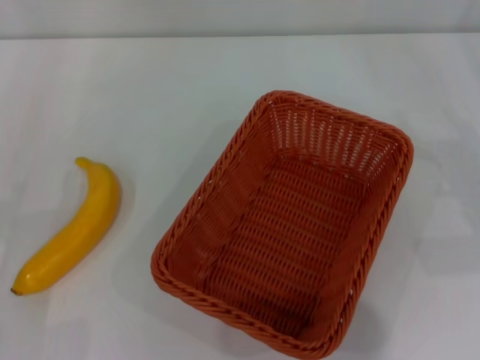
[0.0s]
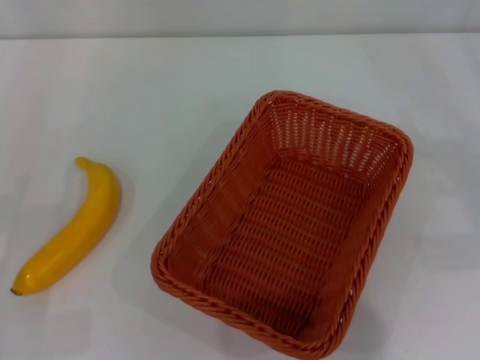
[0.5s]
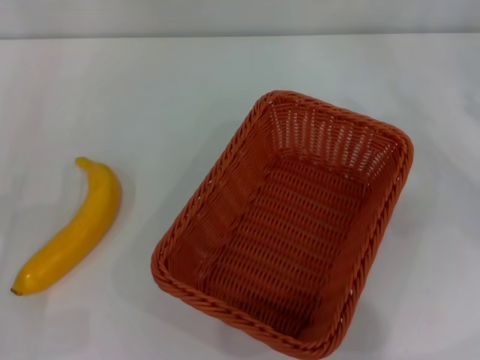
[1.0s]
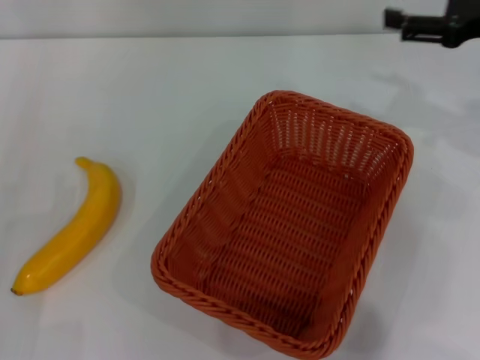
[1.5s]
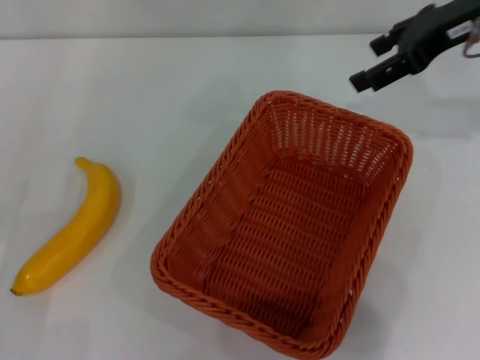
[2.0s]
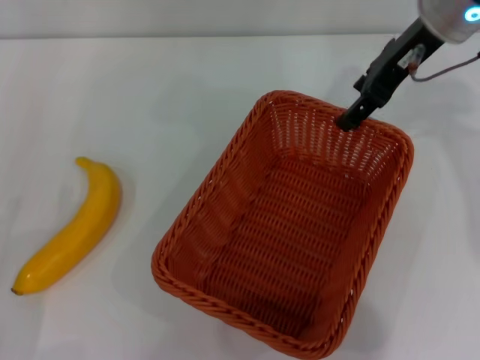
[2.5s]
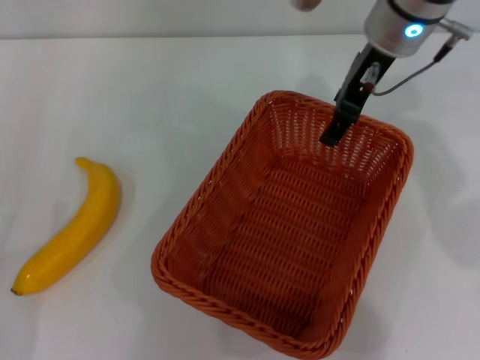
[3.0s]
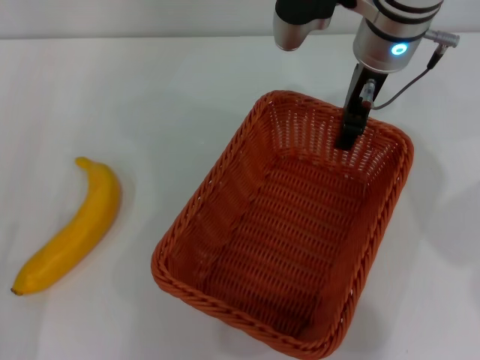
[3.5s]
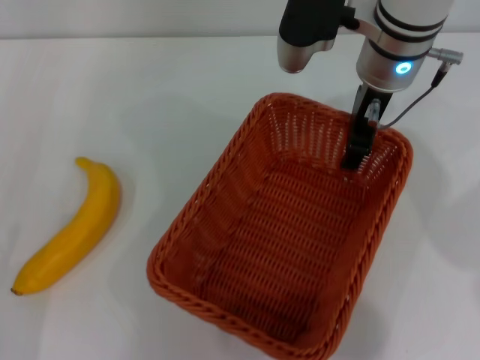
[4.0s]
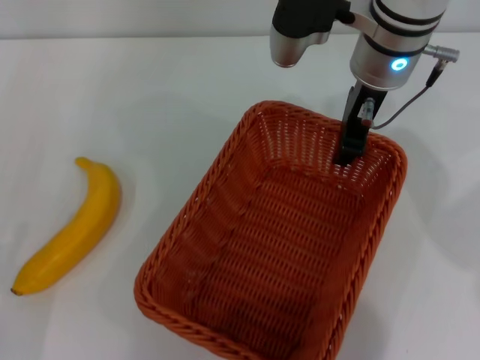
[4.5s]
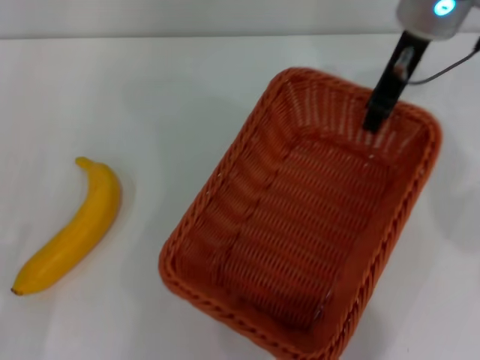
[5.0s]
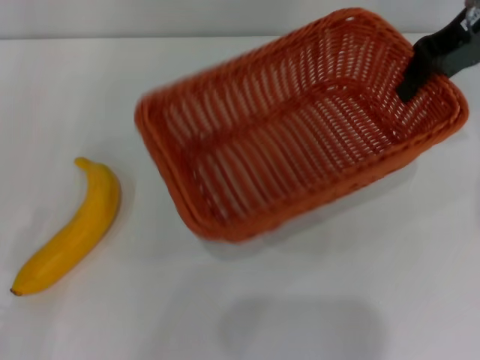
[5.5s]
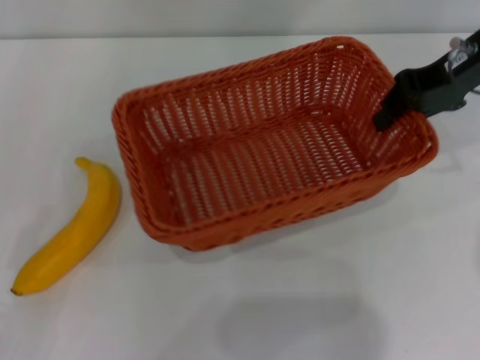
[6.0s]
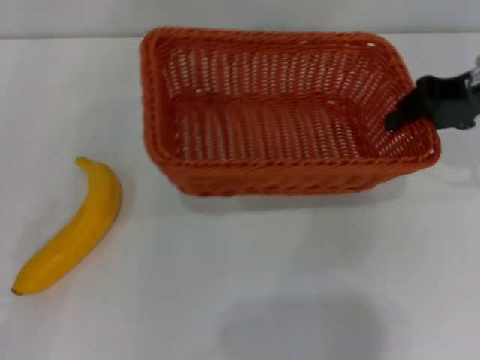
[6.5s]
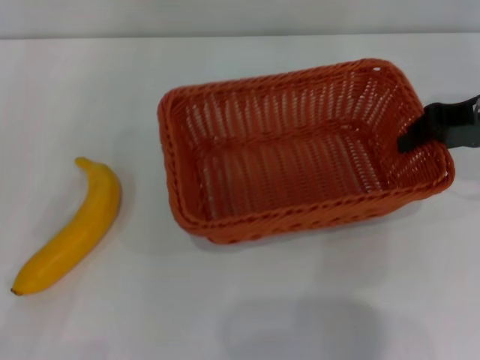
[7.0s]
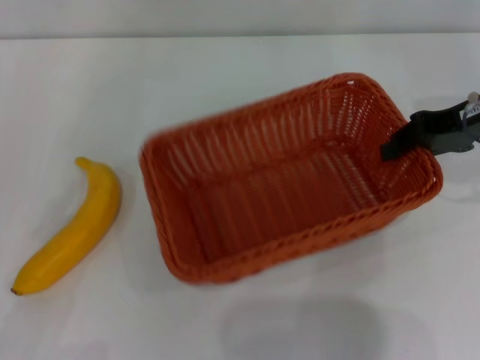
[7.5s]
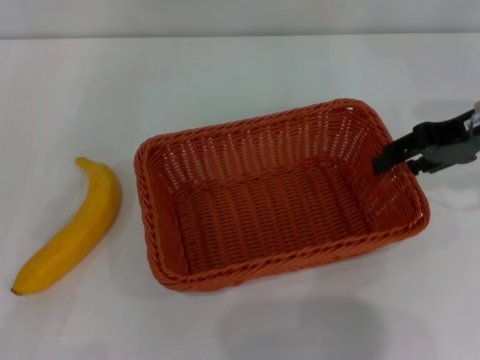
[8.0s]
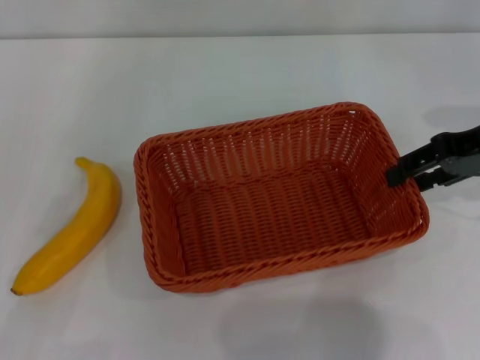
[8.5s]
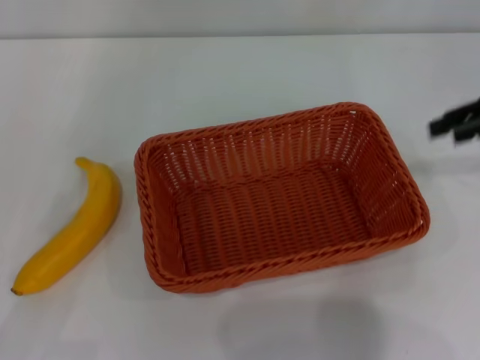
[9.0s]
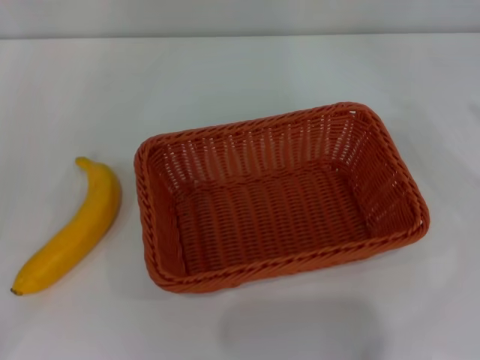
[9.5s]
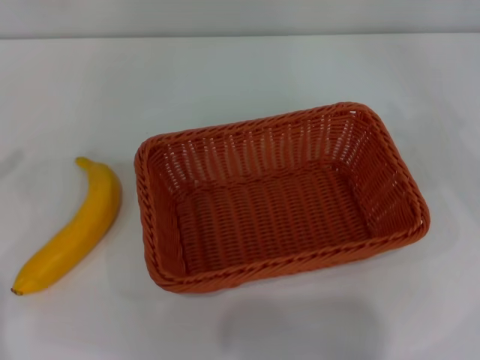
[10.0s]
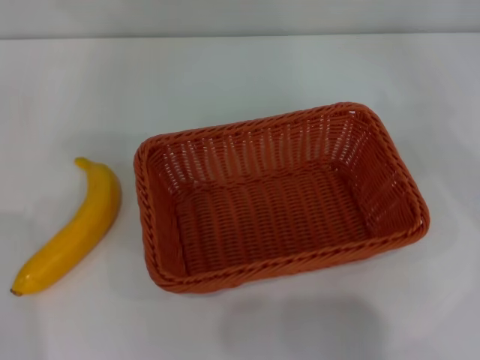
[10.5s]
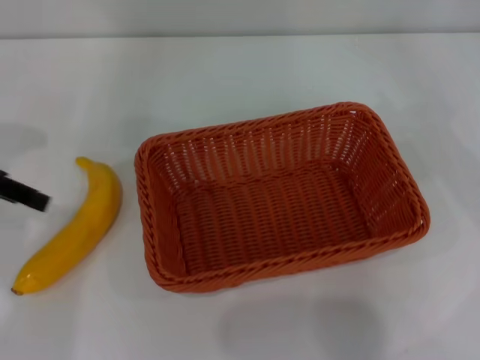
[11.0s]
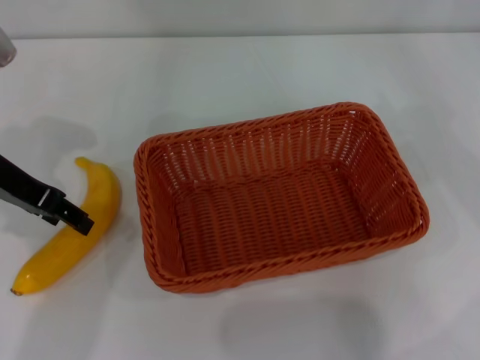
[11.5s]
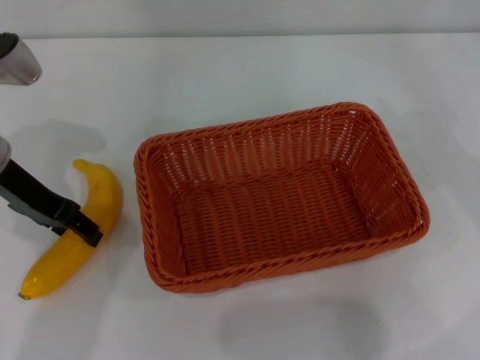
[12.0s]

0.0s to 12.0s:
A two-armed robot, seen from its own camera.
Step, 0.0s to 5.0s: Pick up the light basket with the right gripper.
Step, 5.5s to 9.0s: Place the light basket in the center of view with the right gripper.
0.0s to 2.0s: The right gripper heads upward, to the left and forward, covering roughly 25 cm.
2.0s to 4.0s: The right gripper shifts roughly 15 cm to the left and downward, and closes its fingers. The left gripper moves backward, some 5 cm.
4.0s to 6.0s: The right gripper moves to the right, roughly 15 cm, and closes.
6.0s to 8.0s: The right gripper moves about 5 cm, and opens its fingers.
8.0s to 10.0s: The left gripper heads upward, to the left and forward, covering about 20 cm, while the right gripper goes roughly 20 cm to the right.
10.0s to 12.0s: The left gripper goes approximately 20 cm to the right, forward and downward.

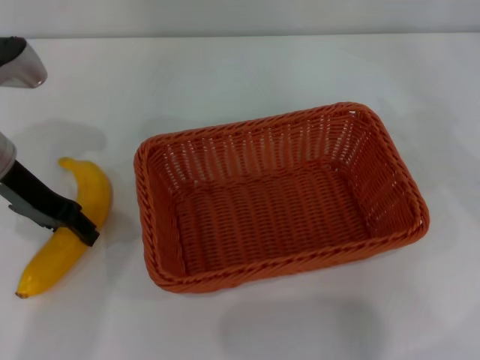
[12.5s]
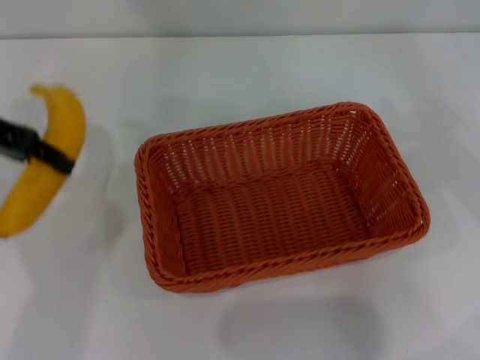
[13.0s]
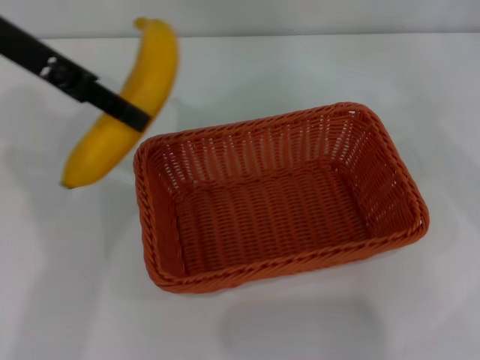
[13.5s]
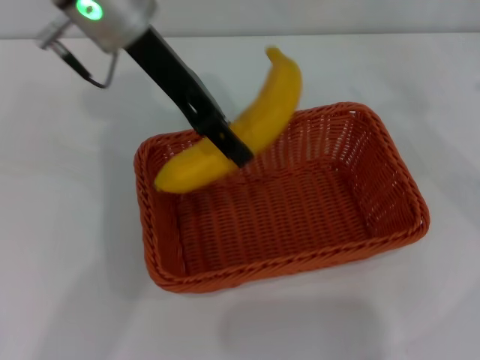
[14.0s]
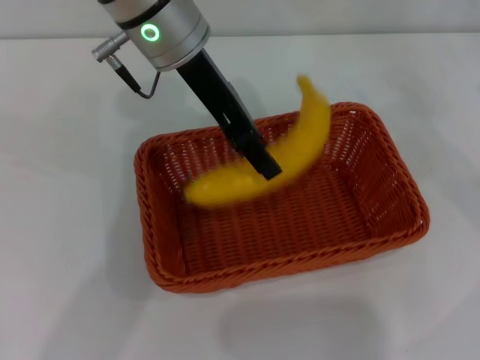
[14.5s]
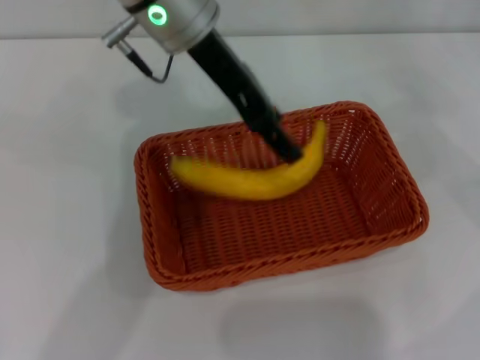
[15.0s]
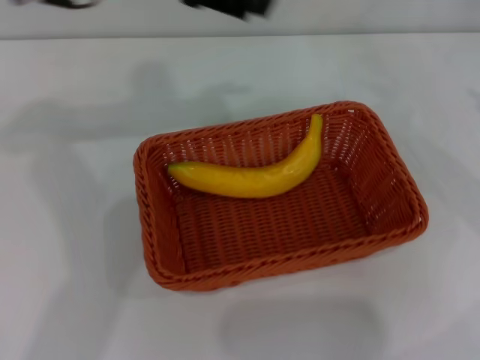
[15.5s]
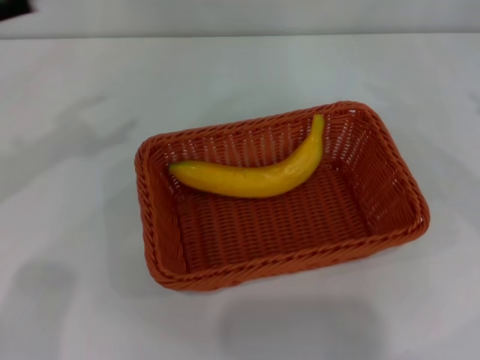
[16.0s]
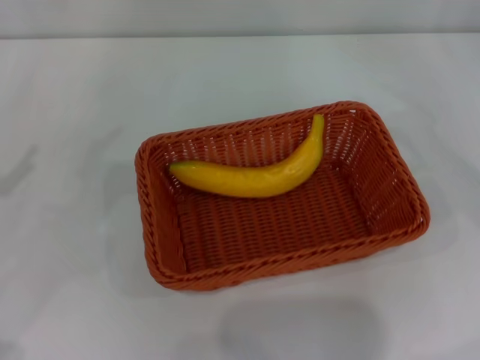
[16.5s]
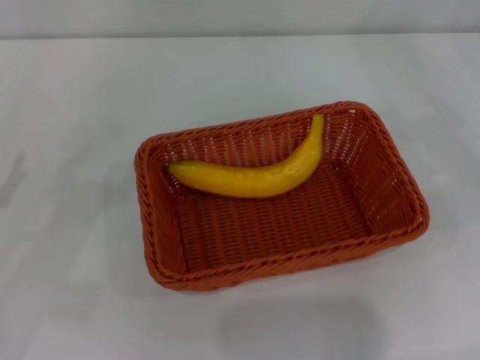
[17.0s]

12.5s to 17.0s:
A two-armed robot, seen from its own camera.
Step, 13.0s to 15.0s: Place the banana into the light basket with the left gripper.
12.5s to 14.5s: The left gripper moves to the right and upward, about 20 cm.
14.5s to 17.0s: The right gripper travels downward by some 5 cm; the left gripper shifts some 40 cm to the left, backward and downward, and opens up.

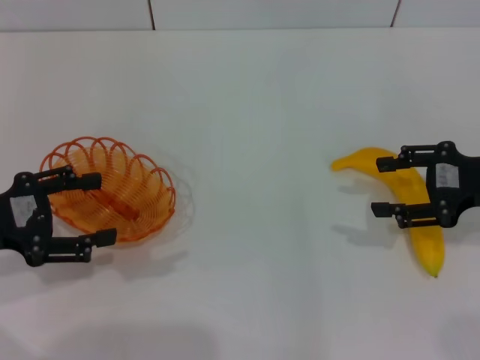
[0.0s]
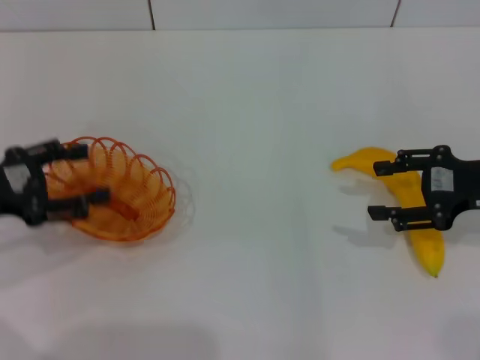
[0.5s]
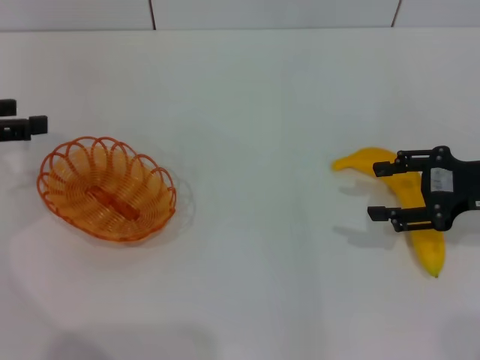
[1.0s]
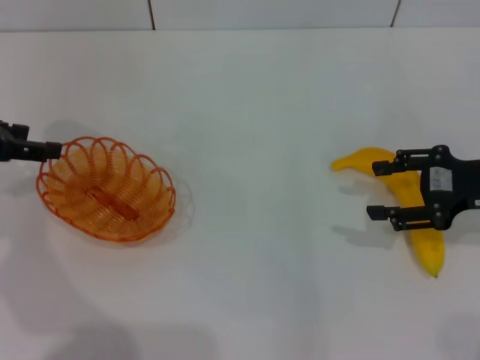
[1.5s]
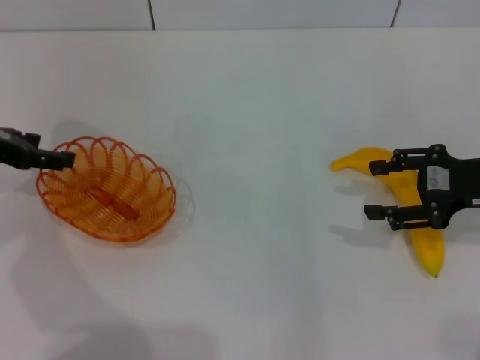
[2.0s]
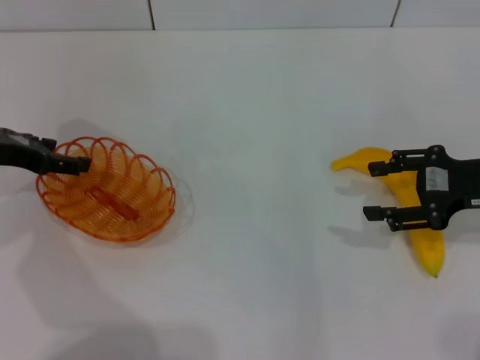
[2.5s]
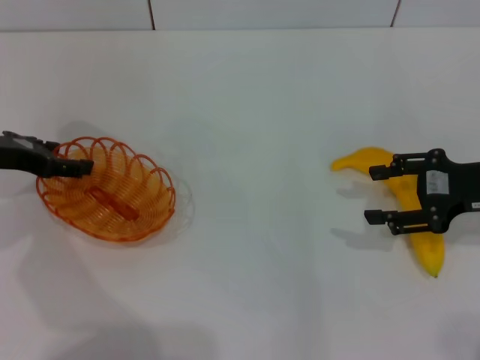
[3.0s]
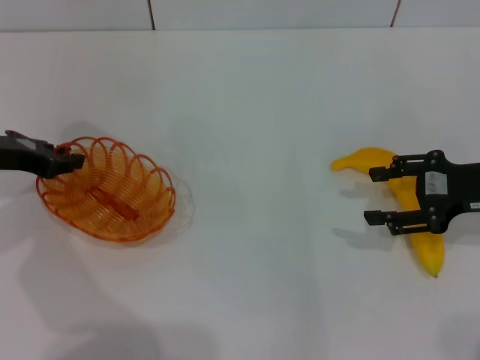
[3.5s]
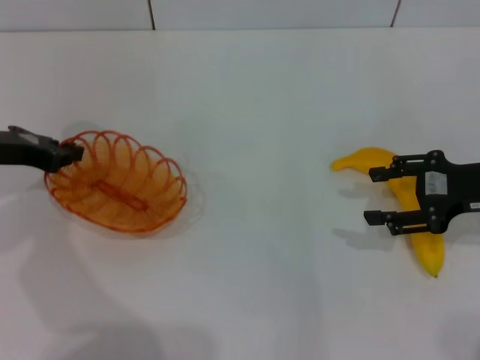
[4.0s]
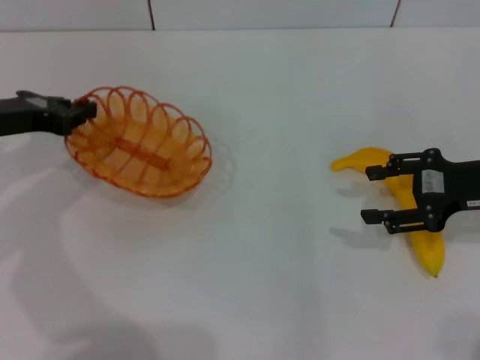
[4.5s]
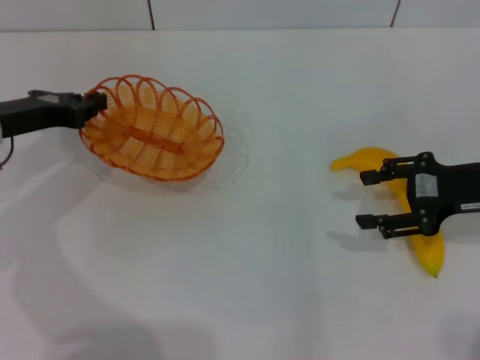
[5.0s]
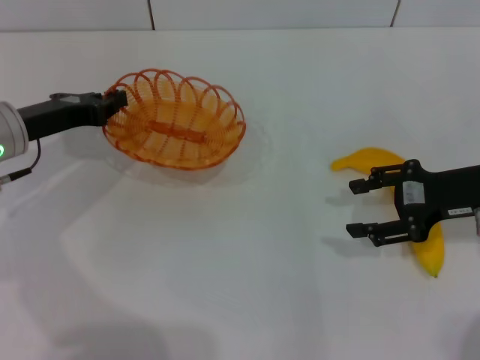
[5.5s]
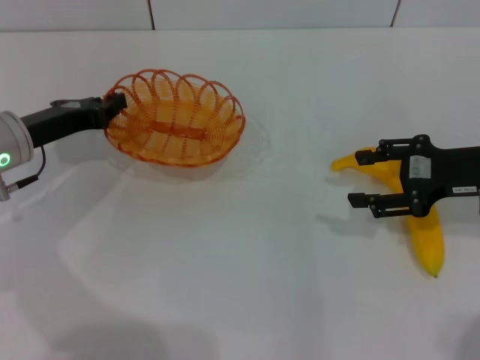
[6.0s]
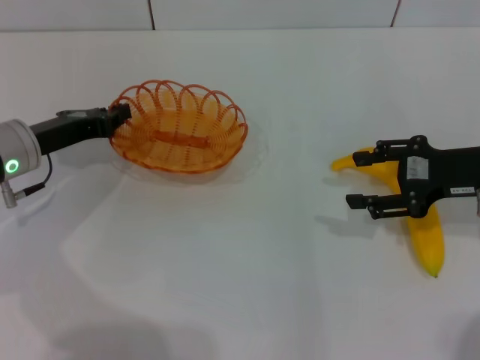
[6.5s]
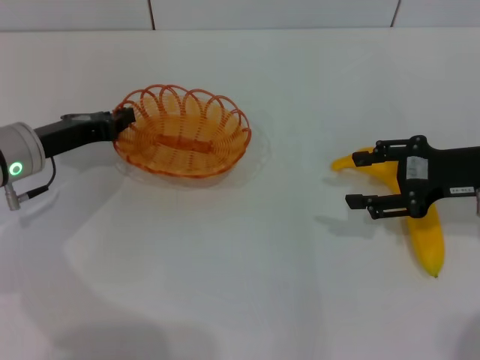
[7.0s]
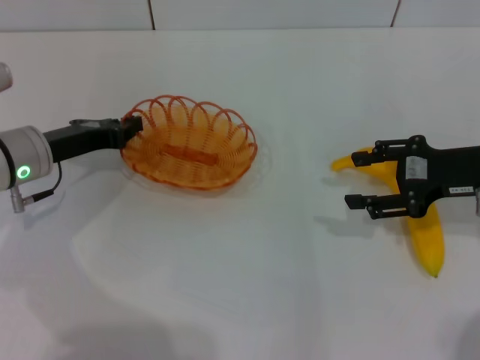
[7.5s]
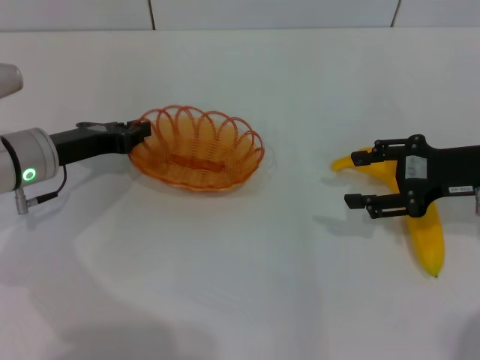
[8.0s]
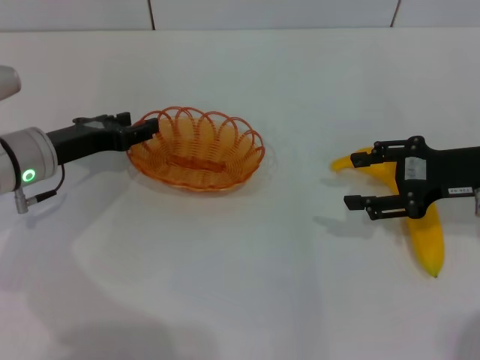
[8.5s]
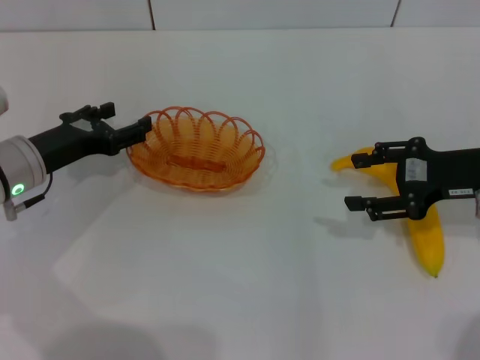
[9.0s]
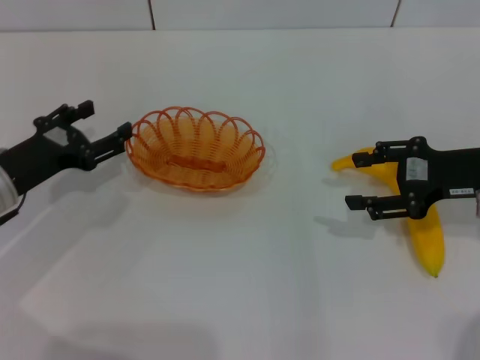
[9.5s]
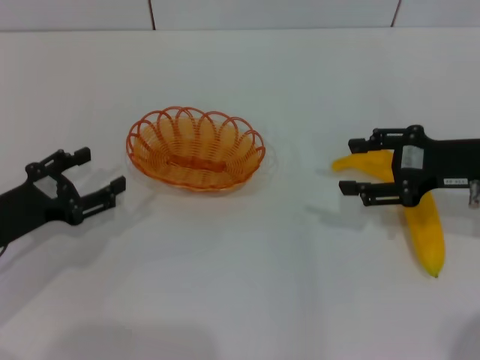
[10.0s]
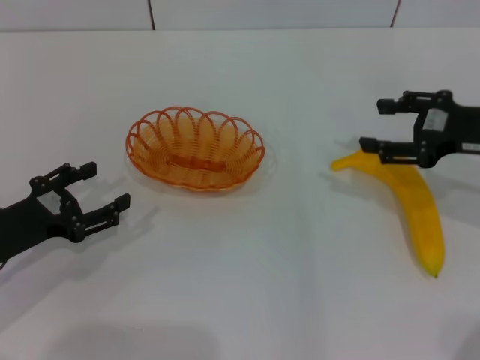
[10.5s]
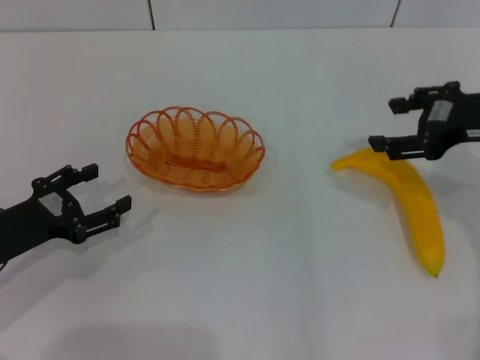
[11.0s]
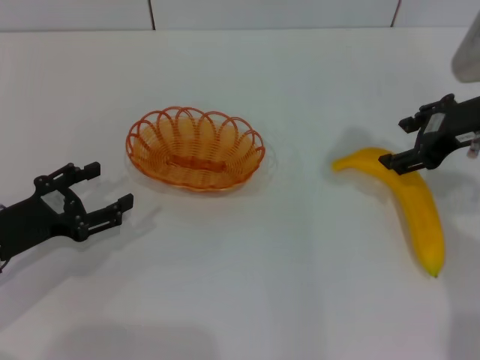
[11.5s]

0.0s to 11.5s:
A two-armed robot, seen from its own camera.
Step, 0.0s to 4.5s: Pick up the basket with the left gripper.
Step, 5.0s to 8.5s: Place the basket in the center of view with the left gripper.
0.0s to 2.0s: The left gripper heads forward, covering about 10 cm.
2.0s to 4.0s: The left gripper closes its fingers.
4.0s to 6.0s: The left gripper ends up about 5 cm from where it was.
6.0s to 7.5s: The grippers move only a little.
7.5s to 9.5s: The left gripper changes place by some 5 cm, and opens up.
9.5s to 11.5s: The left gripper shifts by some 5 cm. Meanwhile the right gripper travels upward by approximately 5 cm.
